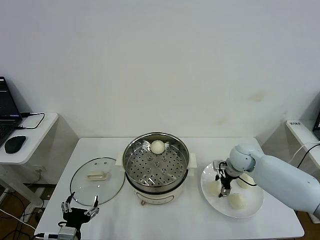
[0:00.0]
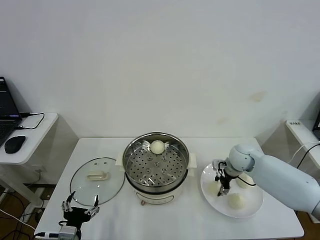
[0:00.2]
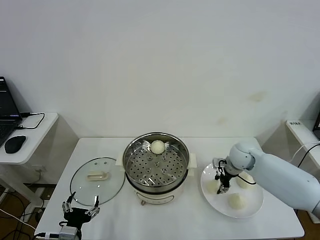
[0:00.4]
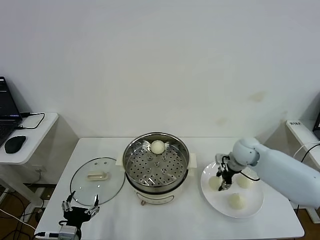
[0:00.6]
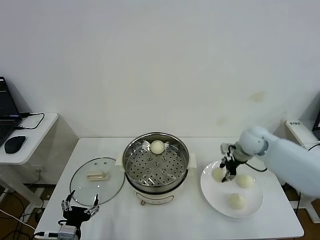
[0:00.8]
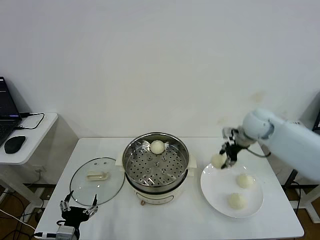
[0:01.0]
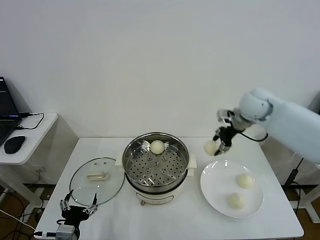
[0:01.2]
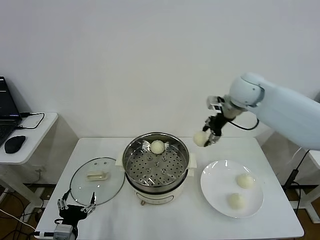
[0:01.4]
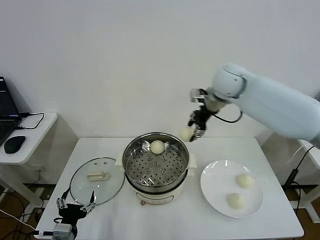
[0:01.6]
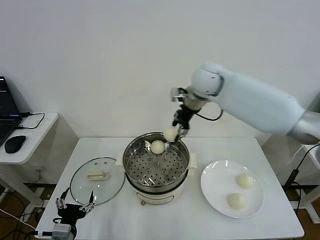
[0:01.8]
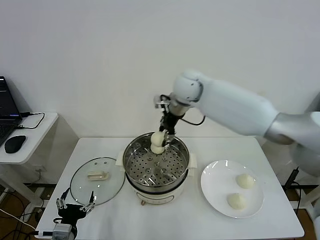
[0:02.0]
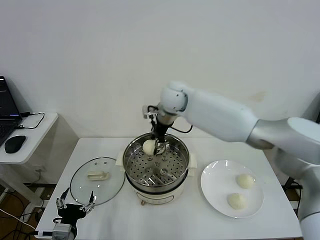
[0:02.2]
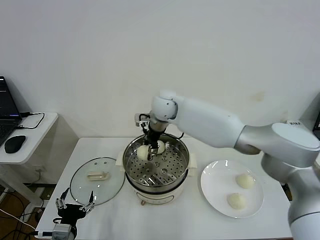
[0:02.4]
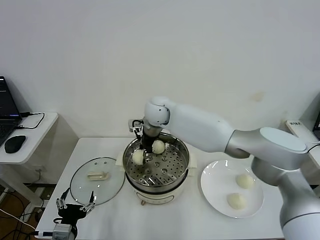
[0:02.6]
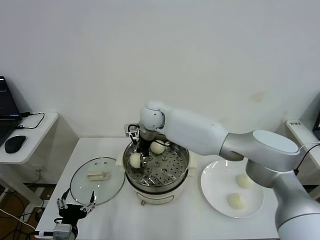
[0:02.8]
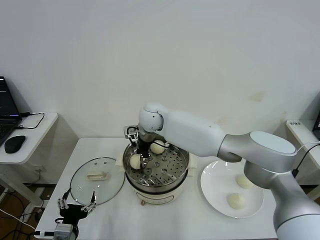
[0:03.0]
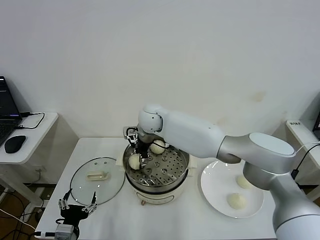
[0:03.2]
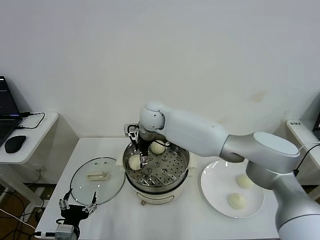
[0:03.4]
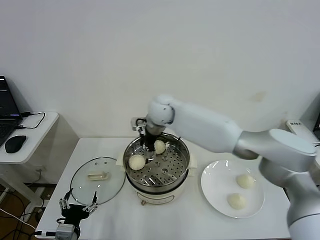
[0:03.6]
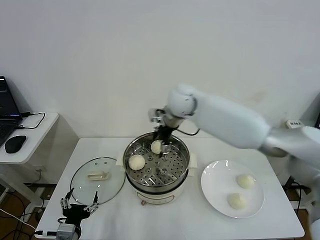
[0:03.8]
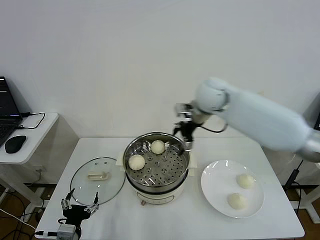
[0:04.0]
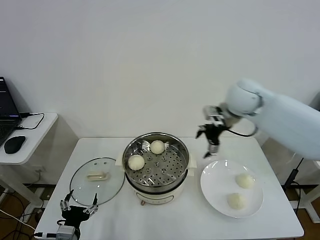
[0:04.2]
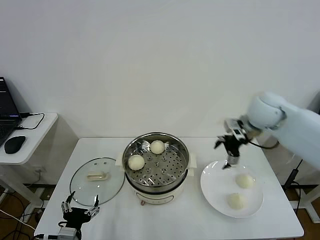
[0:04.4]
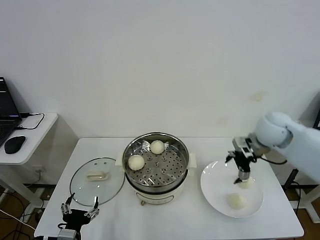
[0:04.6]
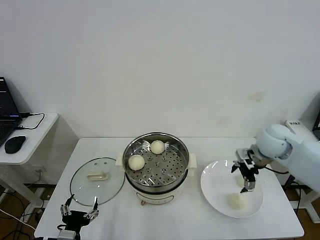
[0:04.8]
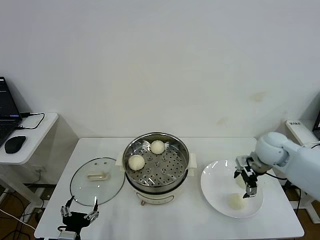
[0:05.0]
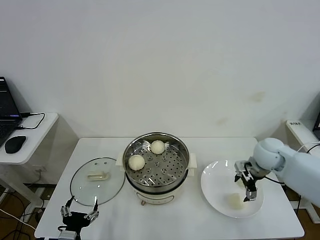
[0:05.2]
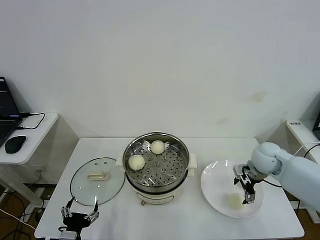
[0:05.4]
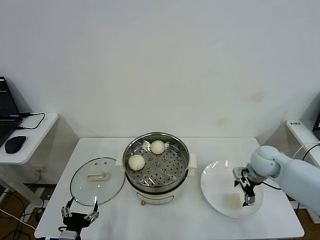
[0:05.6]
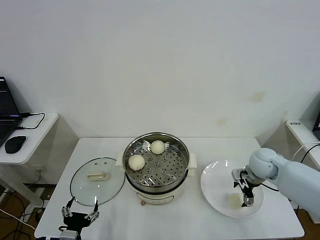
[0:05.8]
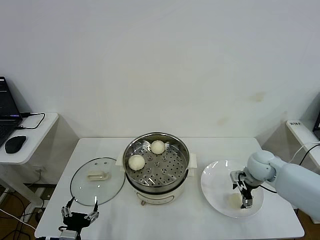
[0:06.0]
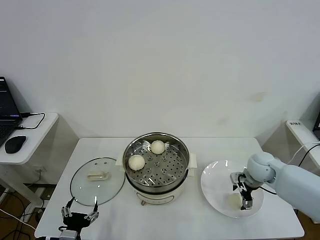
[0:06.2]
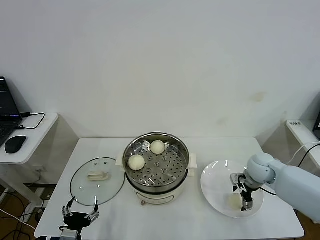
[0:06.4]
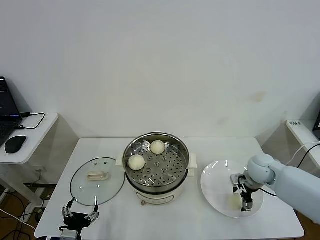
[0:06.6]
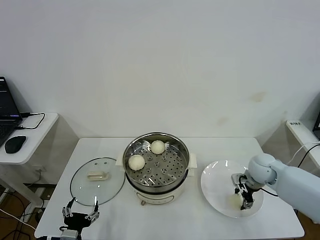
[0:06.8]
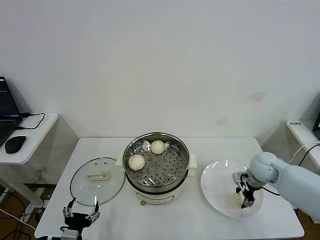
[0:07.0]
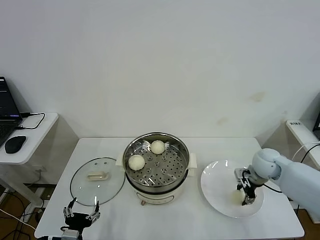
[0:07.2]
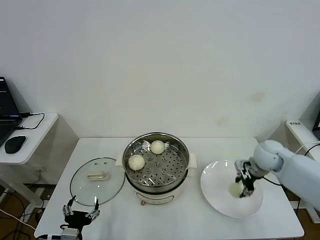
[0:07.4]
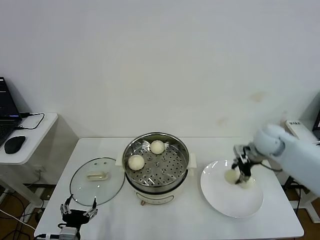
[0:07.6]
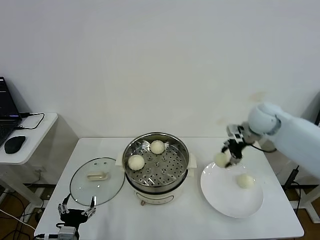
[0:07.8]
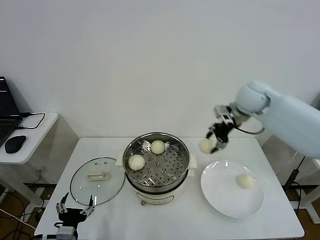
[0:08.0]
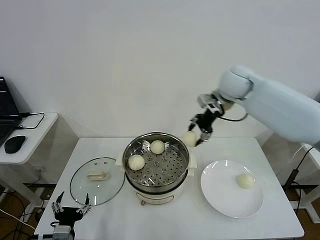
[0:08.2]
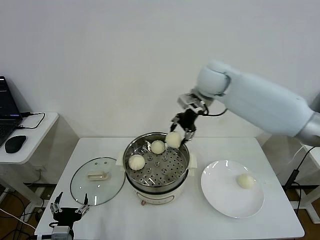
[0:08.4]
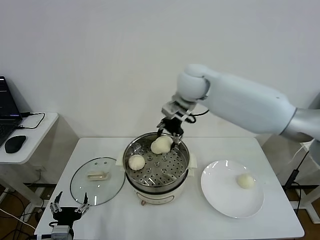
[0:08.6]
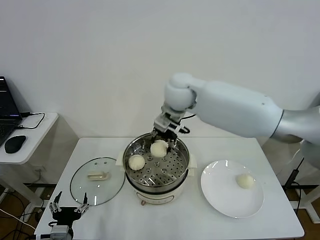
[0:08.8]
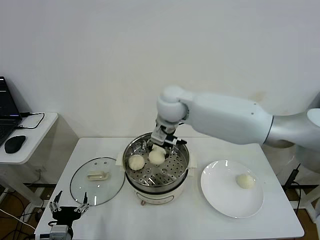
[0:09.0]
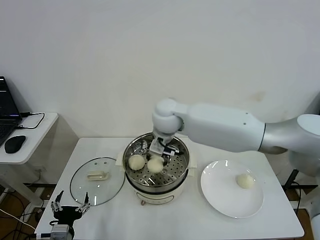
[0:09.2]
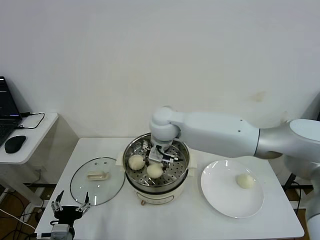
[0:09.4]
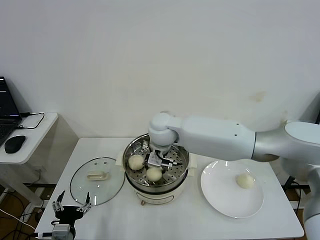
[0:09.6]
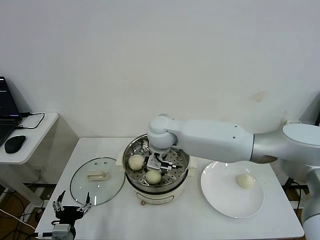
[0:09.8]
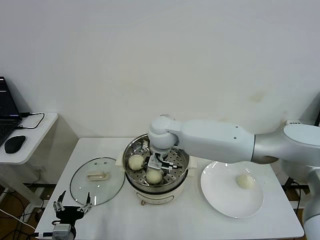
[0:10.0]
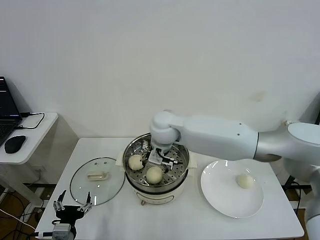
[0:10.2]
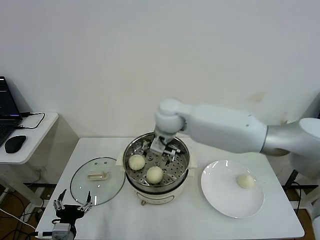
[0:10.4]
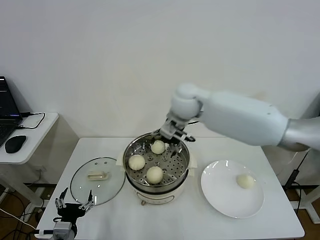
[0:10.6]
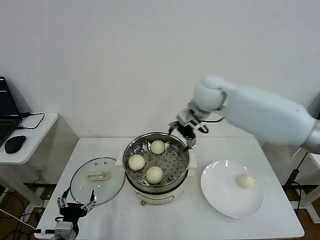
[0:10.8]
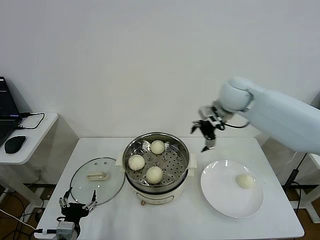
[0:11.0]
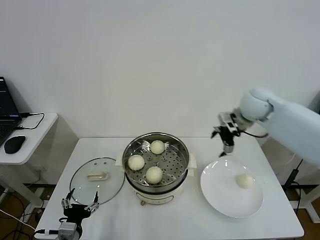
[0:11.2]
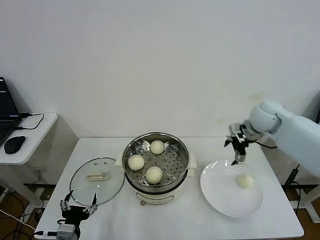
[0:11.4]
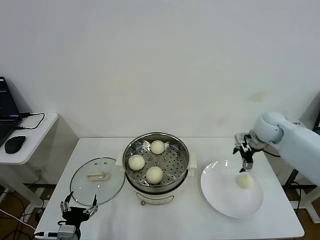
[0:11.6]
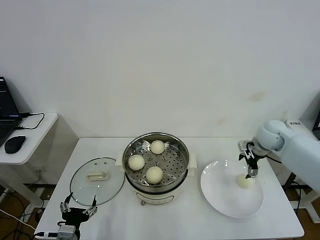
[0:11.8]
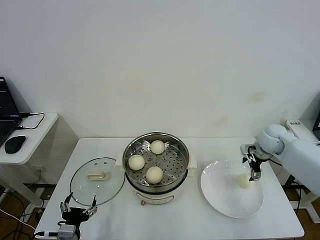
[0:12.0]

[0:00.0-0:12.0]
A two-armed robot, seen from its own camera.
Step, 0.4 to 3.2 s: Place the baozi on the steamer with right gripper.
Step, 3.4 to 6.8 s: Grasp the baozi in the plate with right gripper.
Step, 7.0 to 10.0 s: Place the baozi on the steamer with right gripper.
0.0 to 1.6 s: The right gripper is displaced upward and to the left by some 30 cm.
1.6 to 3.0 s: The right gripper goes some 25 cm to the left and downward.
3.0 to 4.4 s: The right gripper moves to the right, approximately 35 cm, and opens its fingers.
4.4 to 6.0 s: The right gripper travels downward by some 20 cm.
6.0 to 7.6 s: The right gripper shifts about 10 cm upward and forward, and closes up.
7.6 to 9.0 s: The right gripper heads to the left, covering approximately 30 cm.
9.0 to 10.4 s: The right gripper opens up.
10.4 to 12.0 s: The right gripper heads to the right, covering about 35 cm.

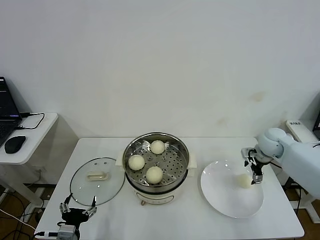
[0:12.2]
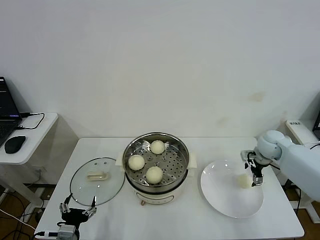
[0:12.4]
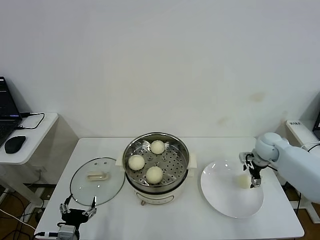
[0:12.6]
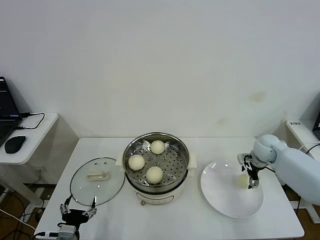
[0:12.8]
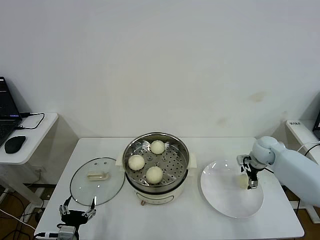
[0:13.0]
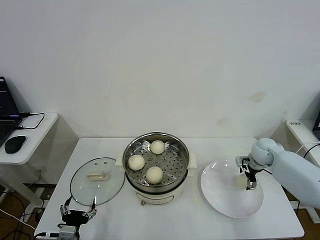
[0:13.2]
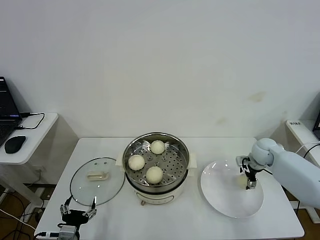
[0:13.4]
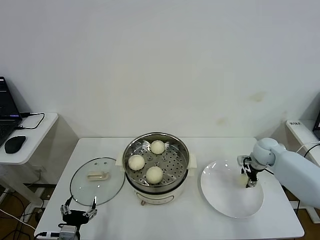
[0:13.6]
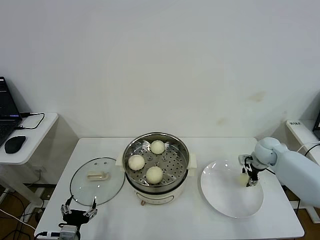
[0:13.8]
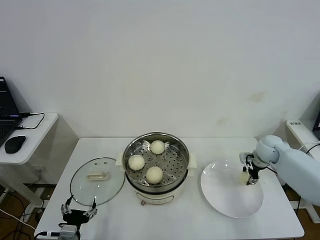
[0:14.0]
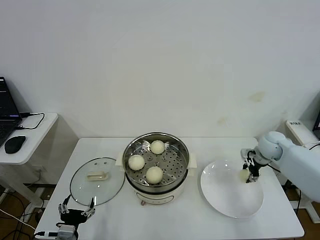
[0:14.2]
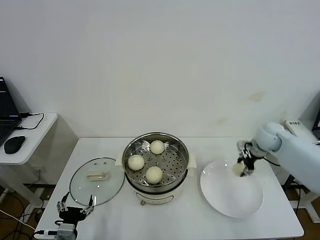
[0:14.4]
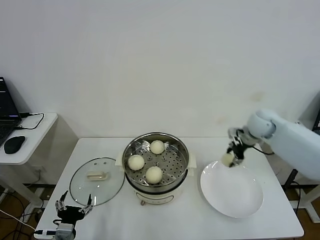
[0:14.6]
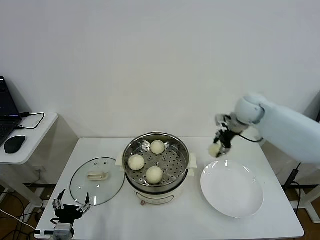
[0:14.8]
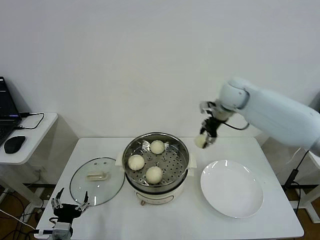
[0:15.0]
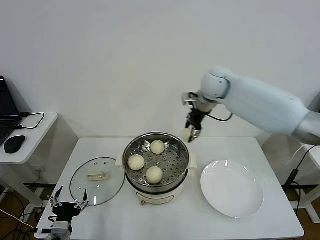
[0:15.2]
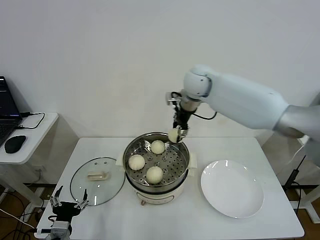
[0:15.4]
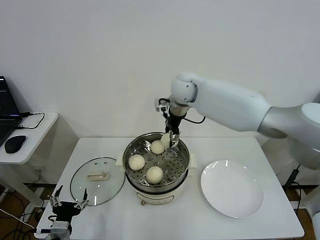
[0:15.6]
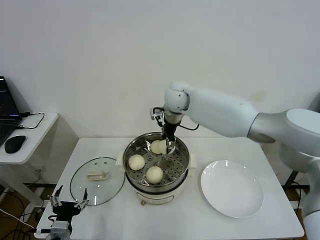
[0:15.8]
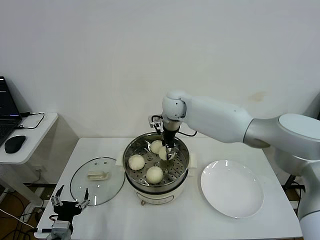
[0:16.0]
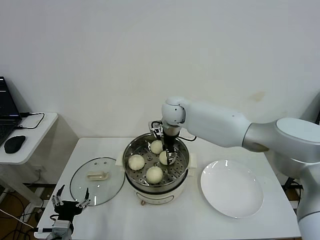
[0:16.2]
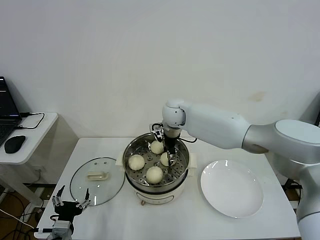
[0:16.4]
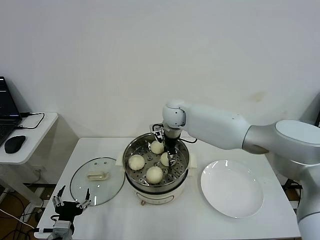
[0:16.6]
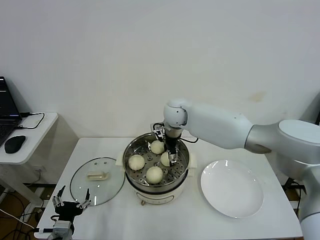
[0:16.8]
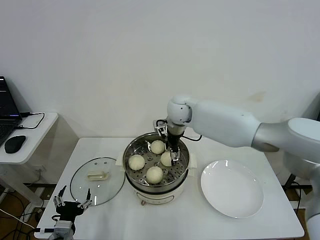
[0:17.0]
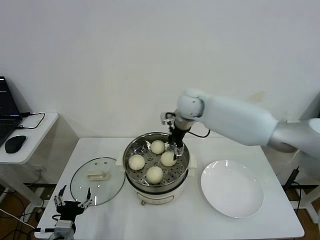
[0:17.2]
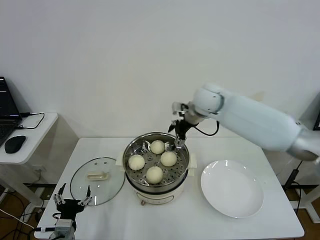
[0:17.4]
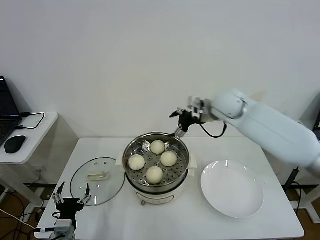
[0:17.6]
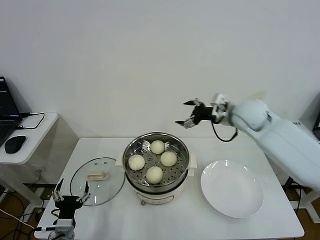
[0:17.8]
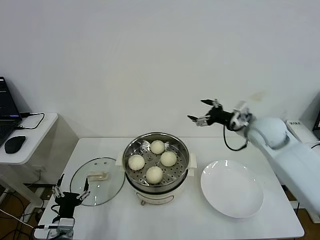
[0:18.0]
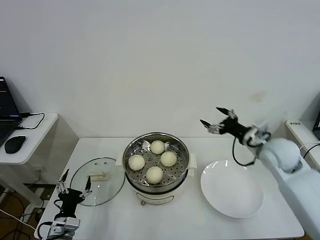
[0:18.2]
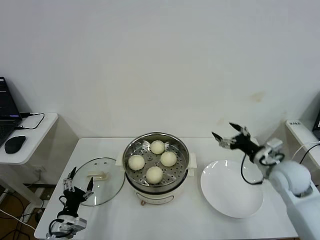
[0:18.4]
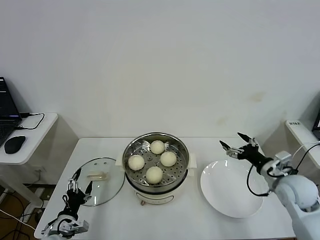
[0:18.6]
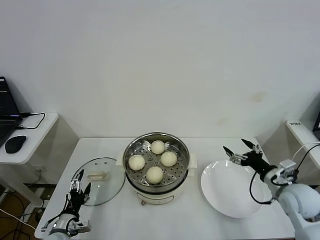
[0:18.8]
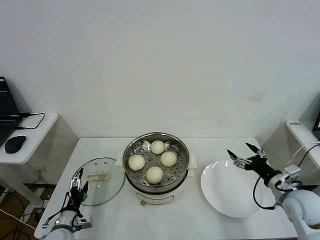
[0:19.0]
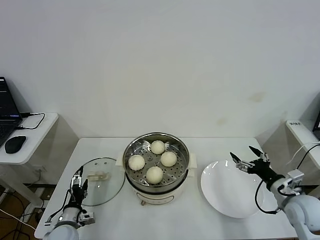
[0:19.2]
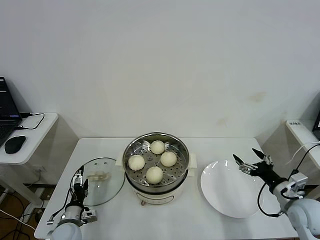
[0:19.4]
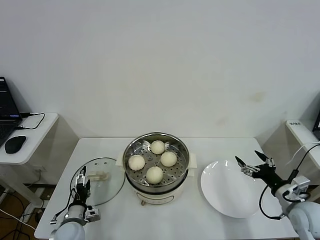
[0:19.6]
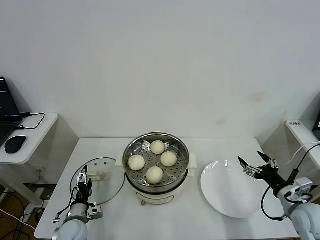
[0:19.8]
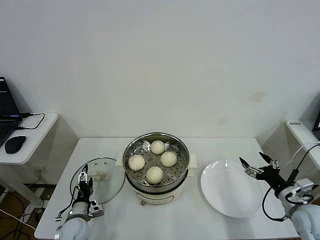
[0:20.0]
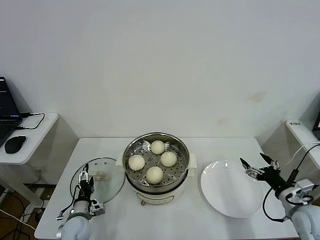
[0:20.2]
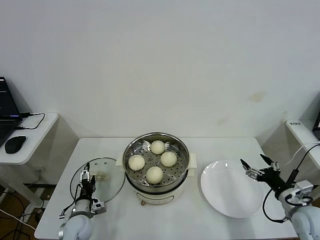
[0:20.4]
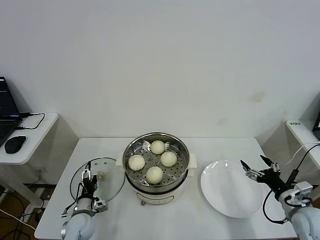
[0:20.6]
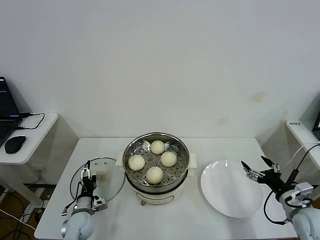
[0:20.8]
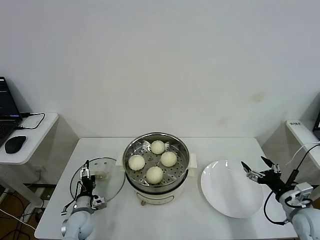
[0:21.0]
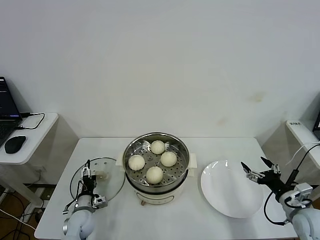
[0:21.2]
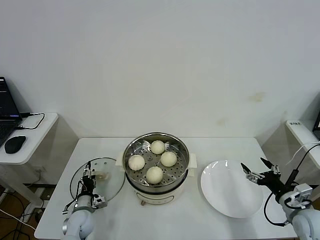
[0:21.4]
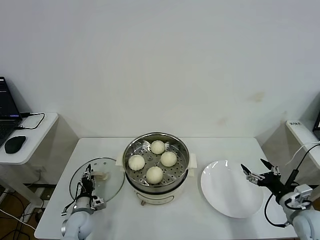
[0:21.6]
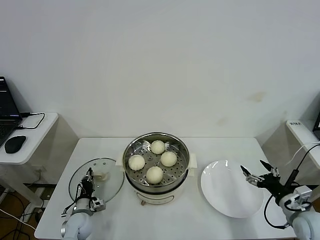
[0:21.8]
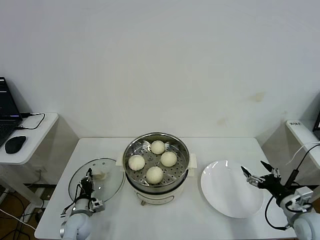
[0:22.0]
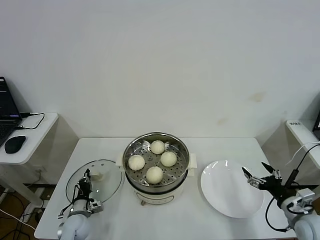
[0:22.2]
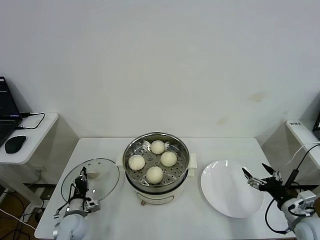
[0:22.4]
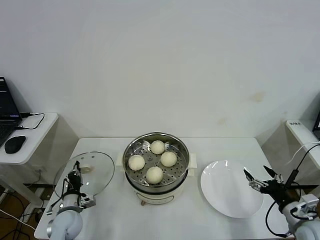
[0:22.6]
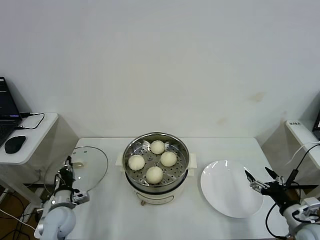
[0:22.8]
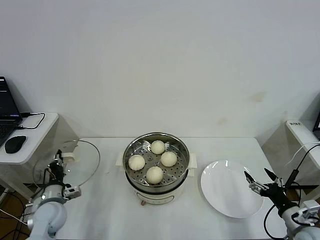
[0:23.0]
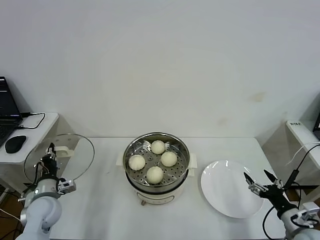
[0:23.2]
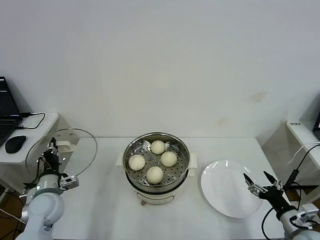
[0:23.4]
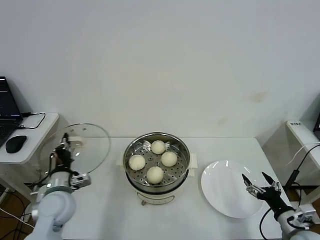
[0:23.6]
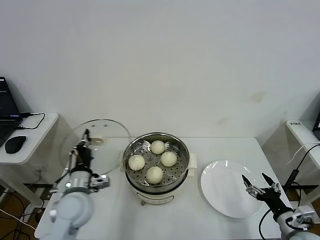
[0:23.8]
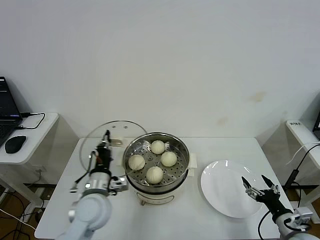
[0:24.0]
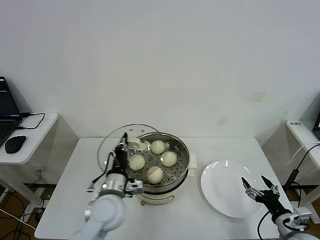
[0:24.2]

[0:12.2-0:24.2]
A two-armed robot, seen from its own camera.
Step, 13.8 to 16.8 s: Place the baozi on the steamer with right gripper.
Step, 17.0 to 22.0 s: Grasp the pot lid with left gripper.
12.2 to 13.8 s: The right gripper closes.
13.8 to 15.2 s: The right gripper heads to the left and upward, covering some 35 cm.
15.2 to 16.6 s: The right gripper shifts roughly 15 cm downward and to the left.
16.6 to 18.2 s: The right gripper travels to the right and backward by some 35 cm, and opens its fingers.
18.2 to 19.8 s: The right gripper is displaced backward, downward and to the right by about 20 cm, while the left gripper is displaced forward by approximately 5 cm.
19.8 to 21.2 s: The left gripper moves some 5 cm.
21.2 to 22.6 s: The left gripper closes.
22.6 to 24.2 s: The right gripper ends up roughly 5 cm from where it was. The left gripper travels to the right and upward by approximately 25 cm.
